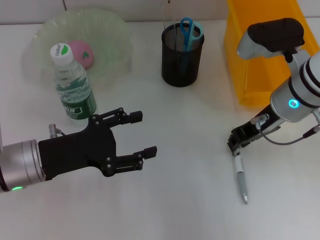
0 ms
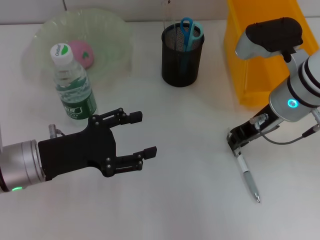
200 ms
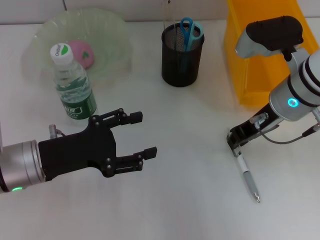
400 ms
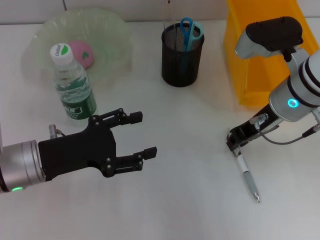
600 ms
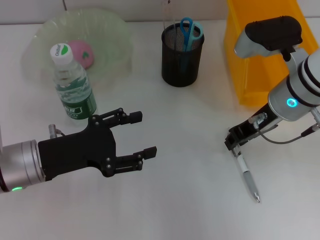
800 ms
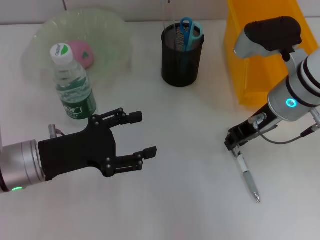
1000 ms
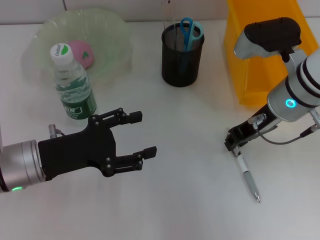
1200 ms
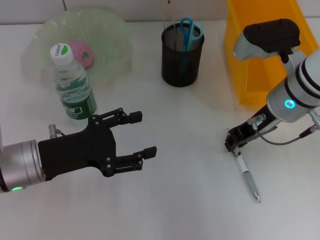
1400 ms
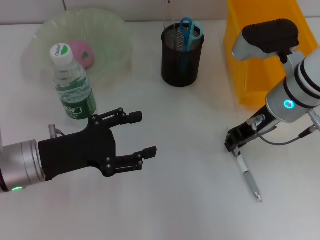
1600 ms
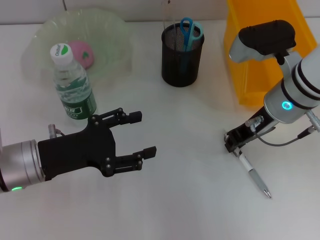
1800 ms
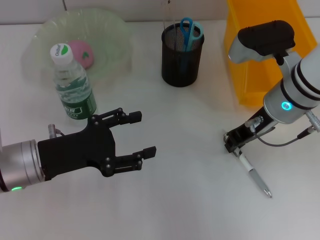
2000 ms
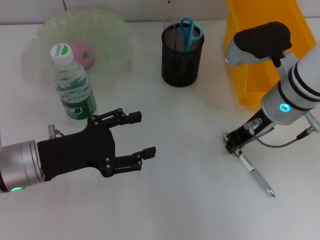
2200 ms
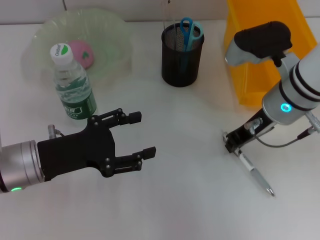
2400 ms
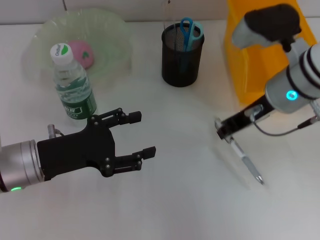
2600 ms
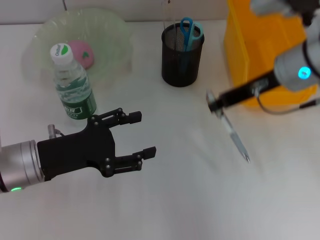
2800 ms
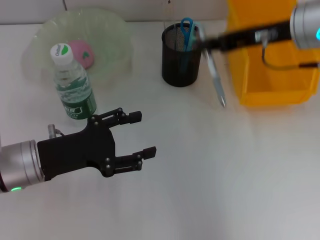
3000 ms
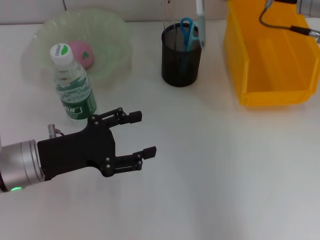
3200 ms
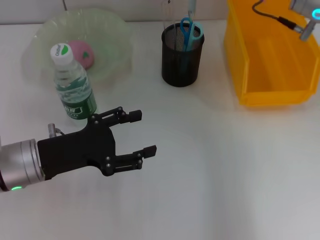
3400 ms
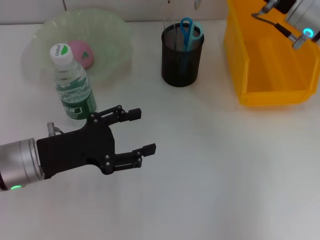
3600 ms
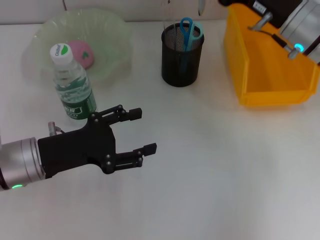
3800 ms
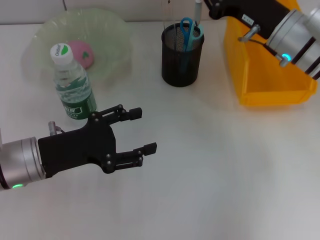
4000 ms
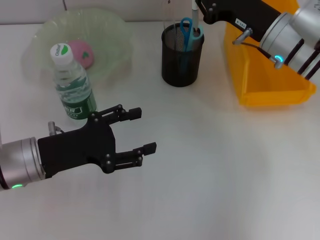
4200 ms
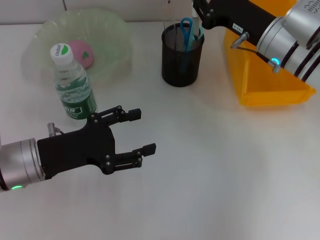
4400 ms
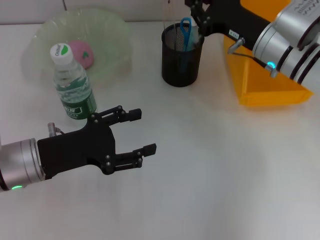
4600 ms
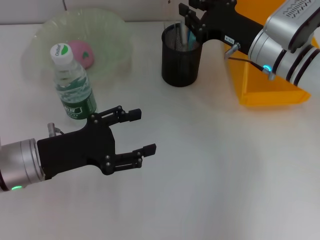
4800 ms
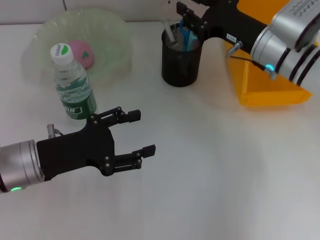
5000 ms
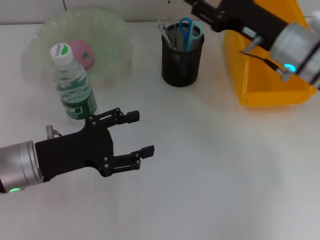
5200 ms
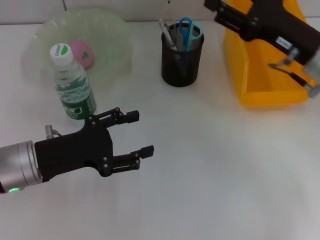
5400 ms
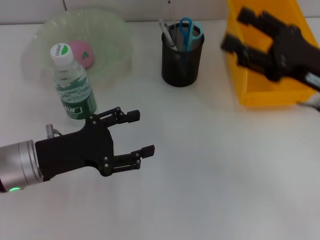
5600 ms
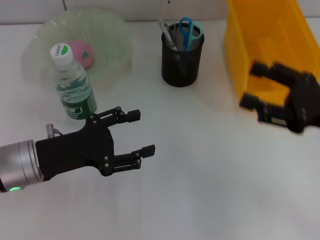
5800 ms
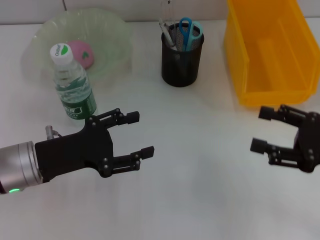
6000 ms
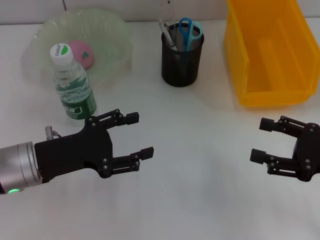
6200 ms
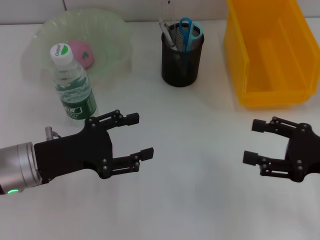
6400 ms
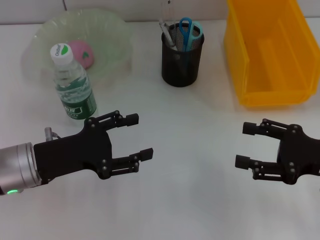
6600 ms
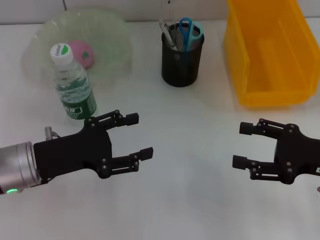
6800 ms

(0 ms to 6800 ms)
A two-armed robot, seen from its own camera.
Step, 0 ms - 2200 ms: Grab the gray spring-action pen with the right hand.
Step, 2400 ms - 5000 ms: Place the gray spring-action pen into the pen holder with the right hand.
0 ms - 1400 ms: Neither gripper changes place.
1400 ms - 2800 ms: The right gripper travels upward by approximately 5 cm.
2800 ms - 4000 ms: The right gripper shifts roughly 5 cm downward.
4000 ms - 5400 ms: The right gripper ends up approximately 5 cm from where it was, and opens its fingers.
5400 ms - 6800 ms: The right gripper shifts some 15 cm backward, to the right and downward, and opens up.

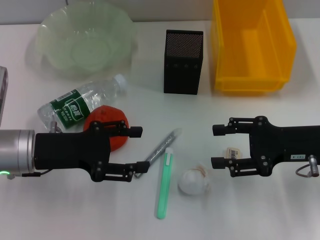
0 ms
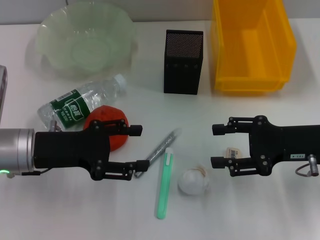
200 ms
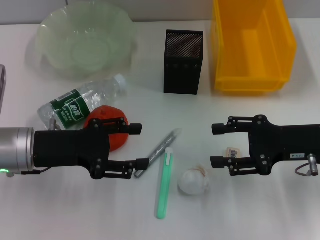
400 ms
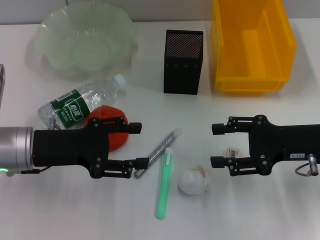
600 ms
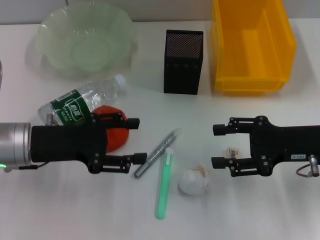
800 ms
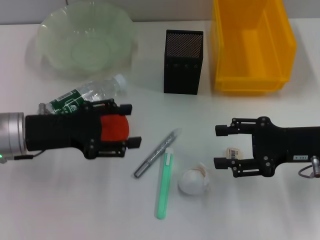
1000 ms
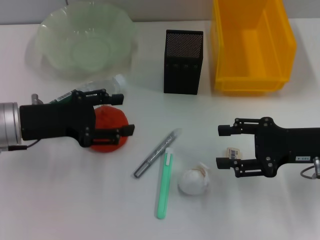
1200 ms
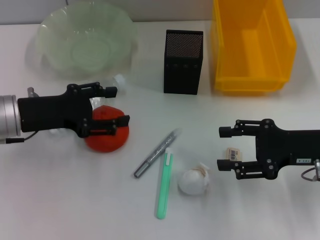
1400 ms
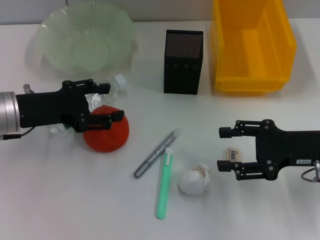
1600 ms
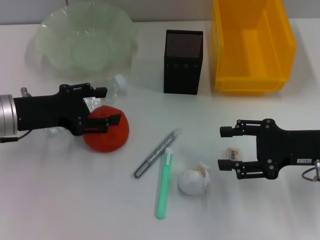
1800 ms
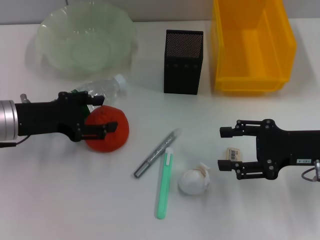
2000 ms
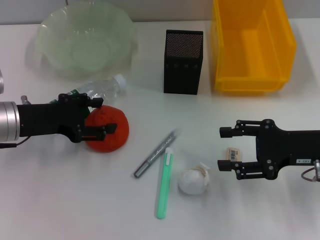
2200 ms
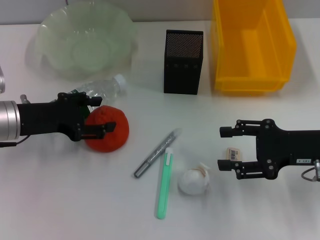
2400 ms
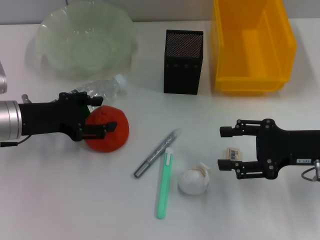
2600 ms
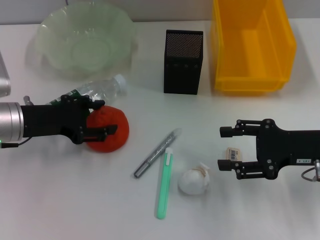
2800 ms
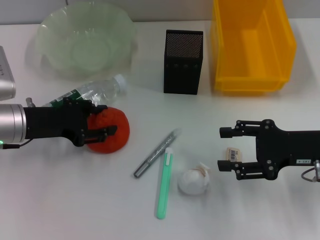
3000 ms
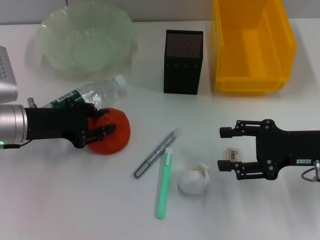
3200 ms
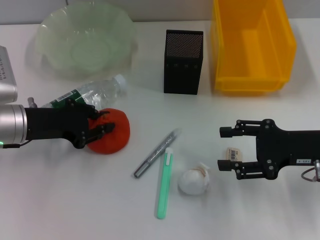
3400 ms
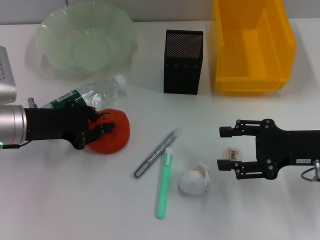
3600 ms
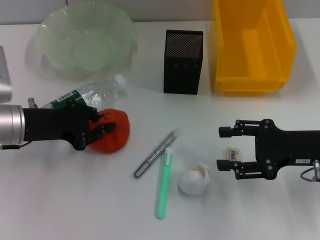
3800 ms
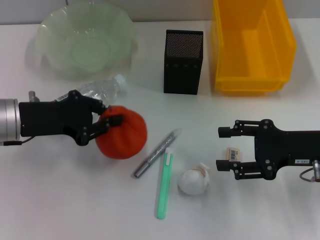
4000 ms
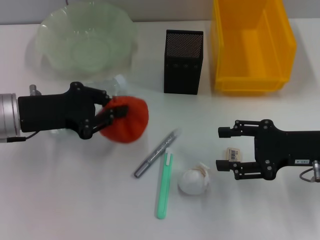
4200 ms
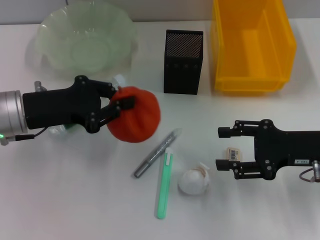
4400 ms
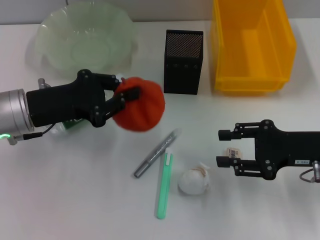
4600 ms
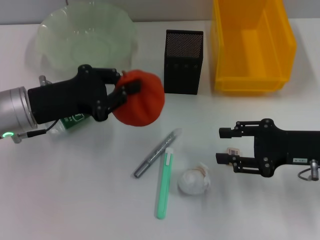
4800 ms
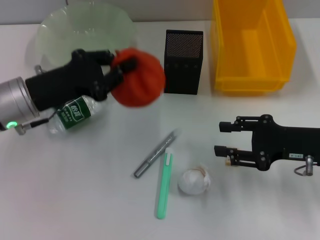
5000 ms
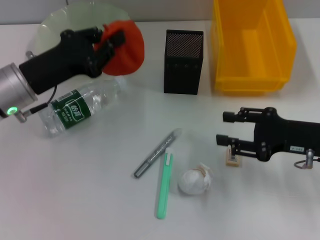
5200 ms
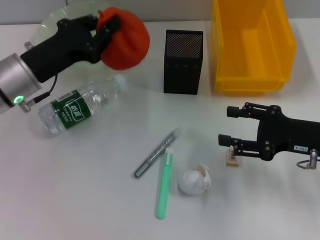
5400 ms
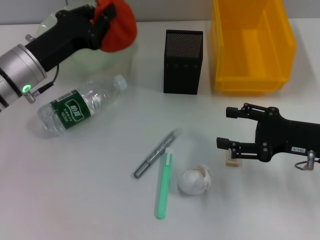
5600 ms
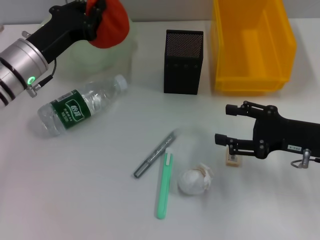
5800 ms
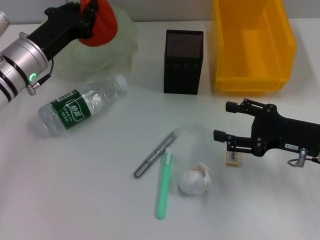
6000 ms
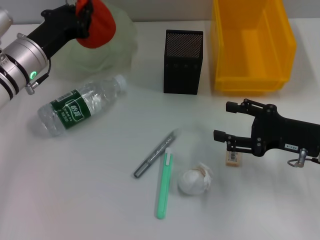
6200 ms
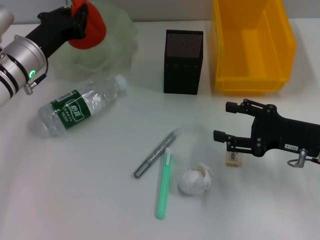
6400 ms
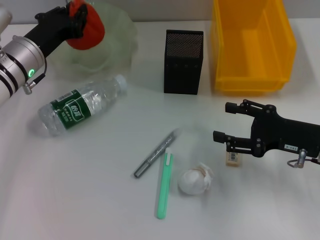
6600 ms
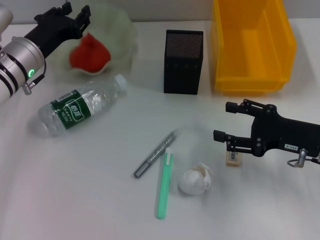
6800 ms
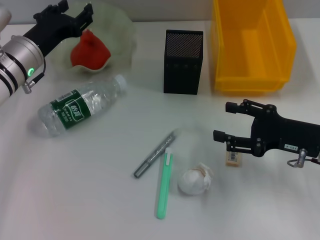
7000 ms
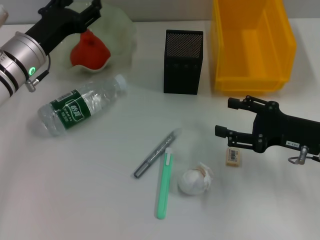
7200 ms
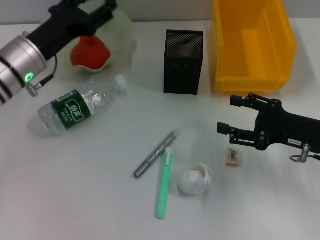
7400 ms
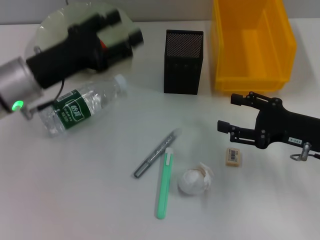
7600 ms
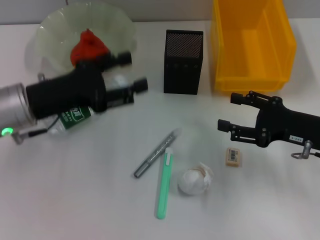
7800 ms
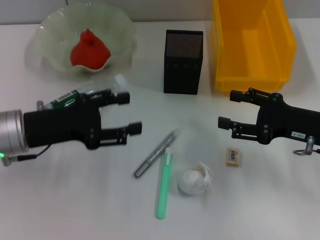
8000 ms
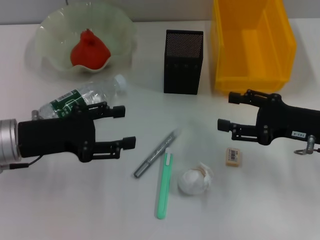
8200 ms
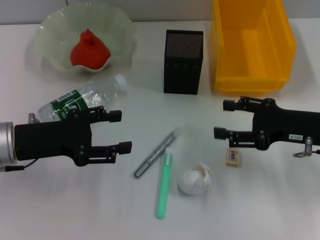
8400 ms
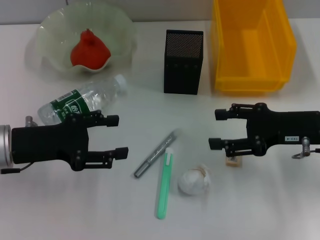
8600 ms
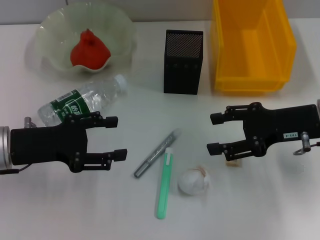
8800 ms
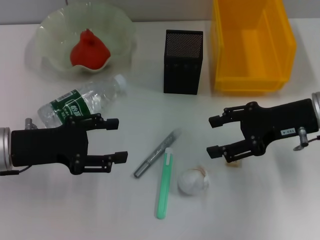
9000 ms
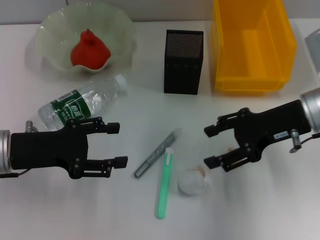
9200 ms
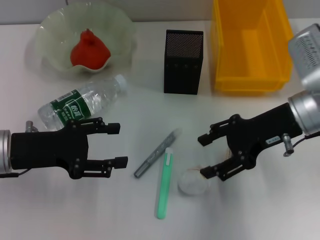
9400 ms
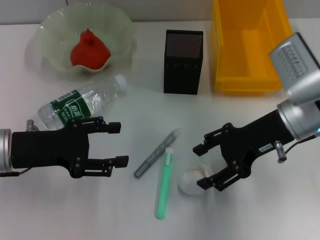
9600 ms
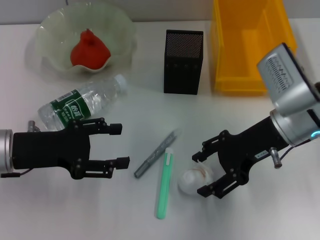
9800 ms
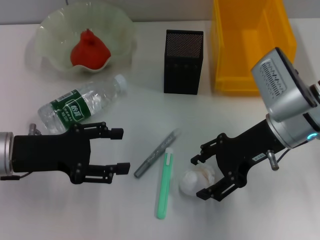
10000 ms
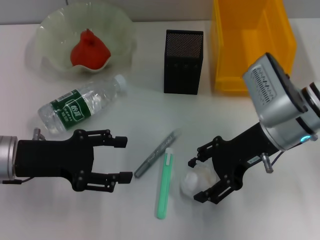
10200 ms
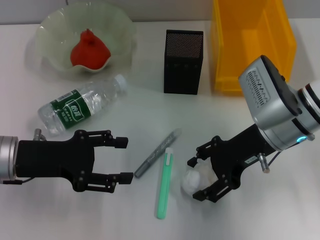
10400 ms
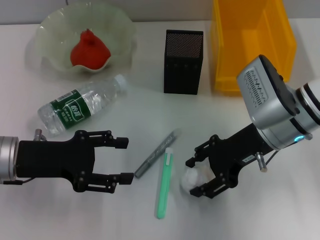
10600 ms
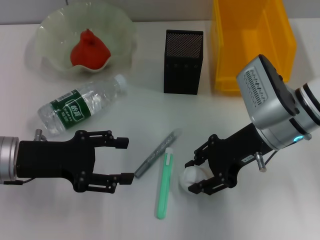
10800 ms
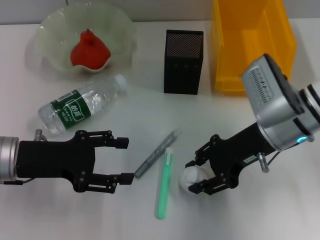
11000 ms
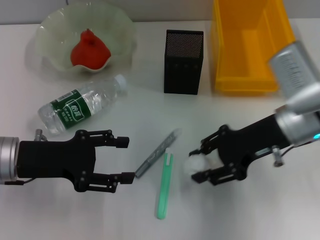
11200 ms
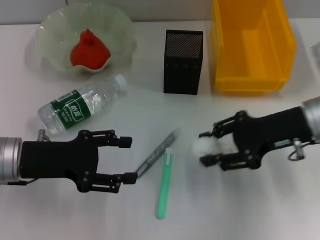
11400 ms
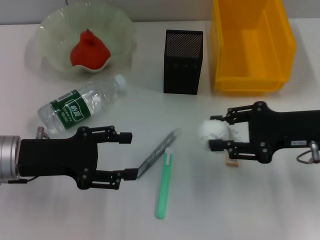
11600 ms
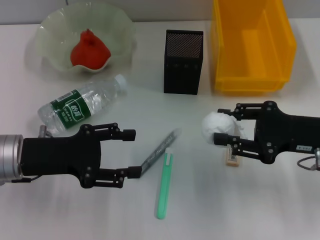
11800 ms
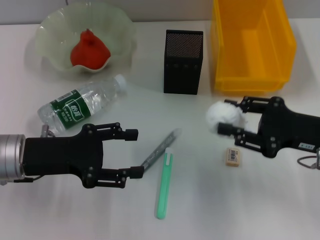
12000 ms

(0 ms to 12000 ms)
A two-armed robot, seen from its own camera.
Step, 0 ms - 3400 ms: Grab the orange with the left hand.
Step, 3800 ms - 7000 ms: Place the orange into the fruit bowl with the left hand.
Step, 7400 ms - 10800 ms: Grab the paper ball with the right hand.
0 ms - 1600 ms: The left gripper ends up some 5 cm from where it was.
1600 ms - 3000 ms: The grippers make only small movements.
3000 ms - 4400 ms: The left gripper closes up.
4400 ms - 6000 ms: The left gripper travels forward by approximately 5 cm.
6000 ms - 7600 ms: The left gripper shifts some 5 cm backward, and opens its fingers.
7600 ms - 9000 ms: The right gripper shifts approximately 5 cm upward. The left gripper moves backward, about 5 cm.
9000 ms - 10400 ms: The right gripper is displaced to the left by some 5 cm.
10400 ms - 12000 ms: The right gripper goes roughly 10 cm to the right and backward, and closes.

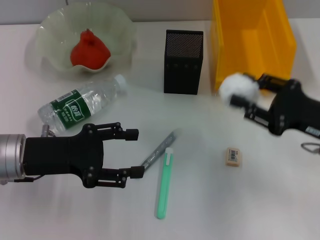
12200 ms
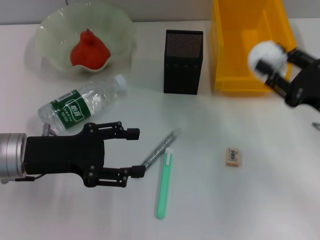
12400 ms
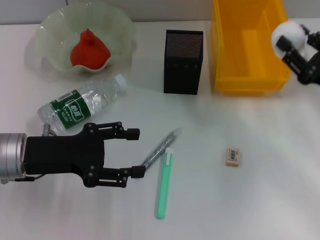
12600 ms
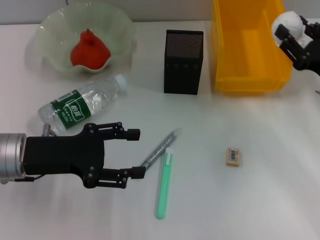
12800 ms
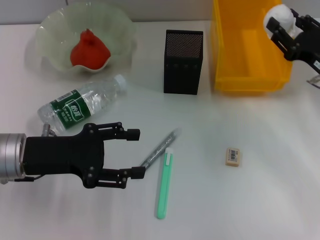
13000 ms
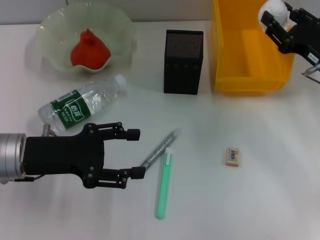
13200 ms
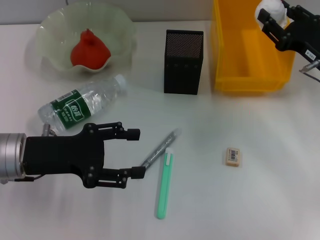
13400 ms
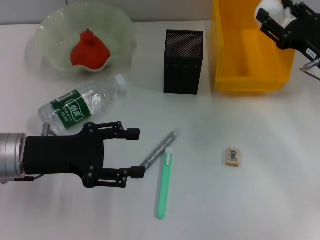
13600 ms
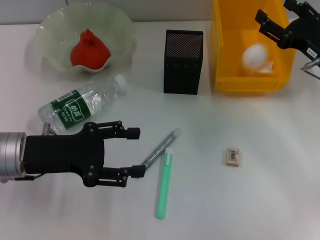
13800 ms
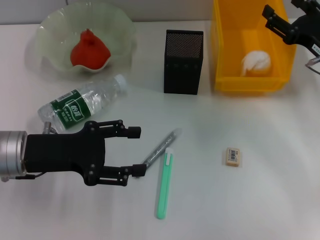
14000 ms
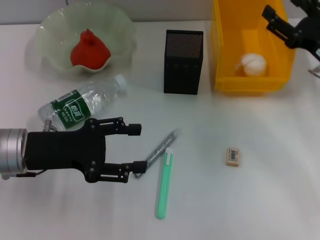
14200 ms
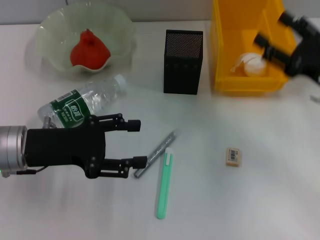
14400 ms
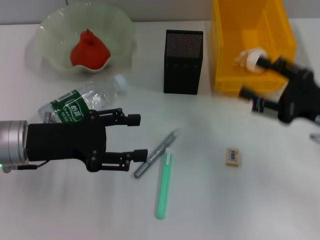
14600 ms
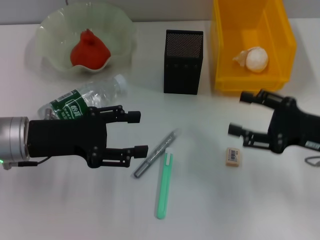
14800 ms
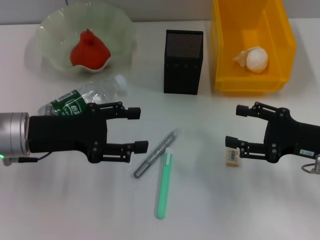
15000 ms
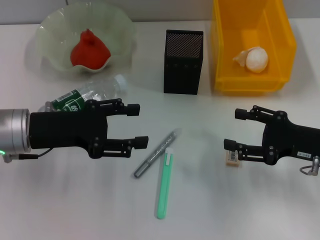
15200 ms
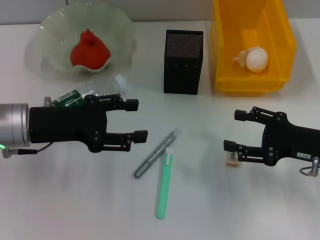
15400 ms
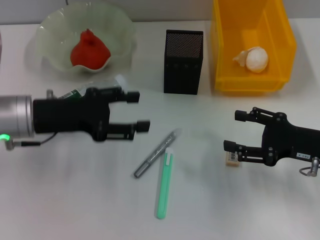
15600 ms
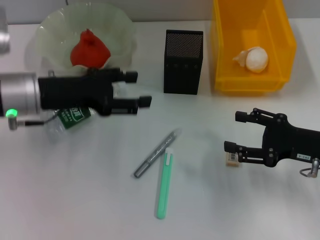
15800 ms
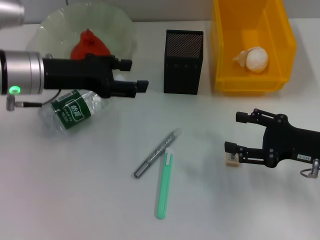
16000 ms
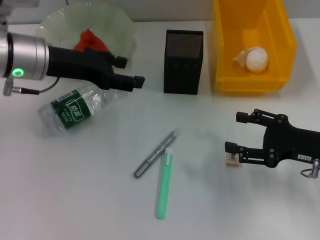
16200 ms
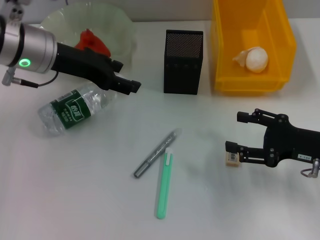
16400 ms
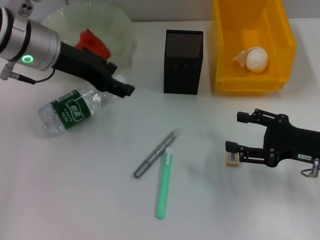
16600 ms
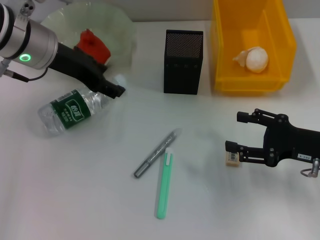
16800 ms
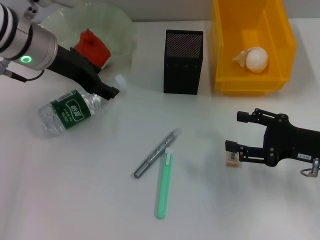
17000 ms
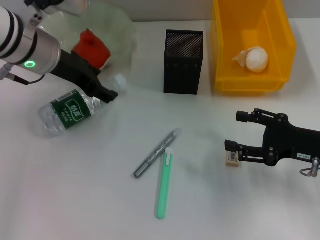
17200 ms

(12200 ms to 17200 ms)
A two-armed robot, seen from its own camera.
Step, 12200 ms - 14200 ms: Place the paper ball into the trash can with the right hand.
12200 ms - 13800 ms: The right gripper heads forward, covering about 10 cm, and opens.
13800 ms - 15600 ms: The right gripper is displaced backward by some 10 cm.
15600 ms - 17200 ms: The left gripper travels forward and upward by about 10 cm.
